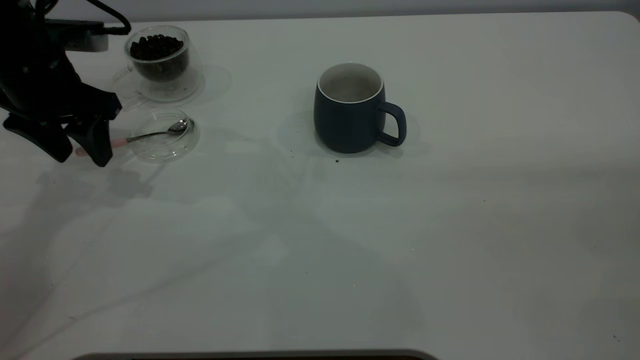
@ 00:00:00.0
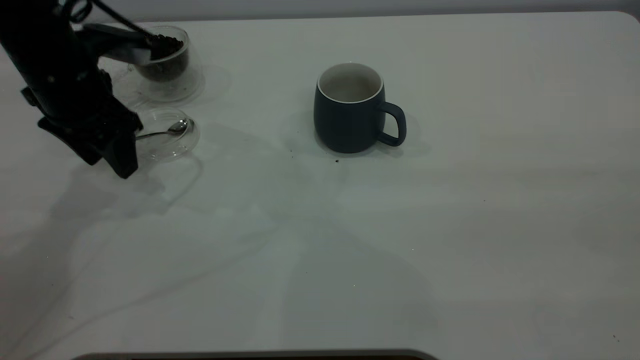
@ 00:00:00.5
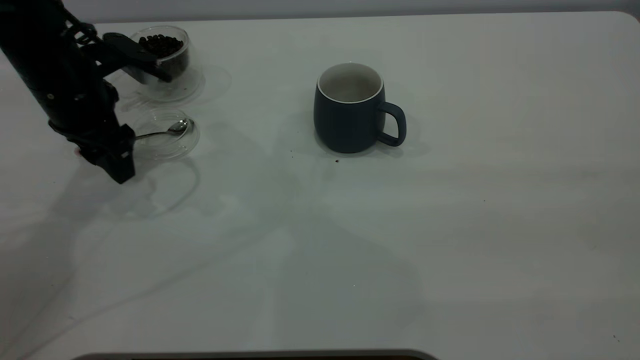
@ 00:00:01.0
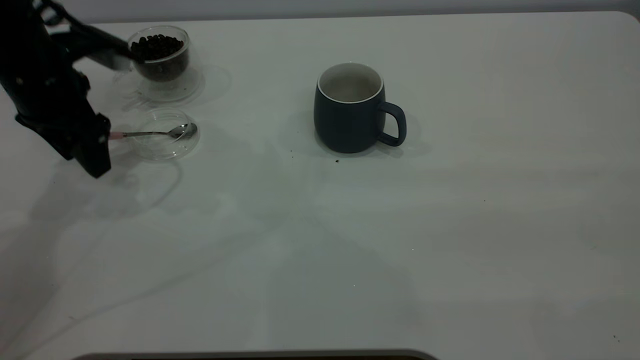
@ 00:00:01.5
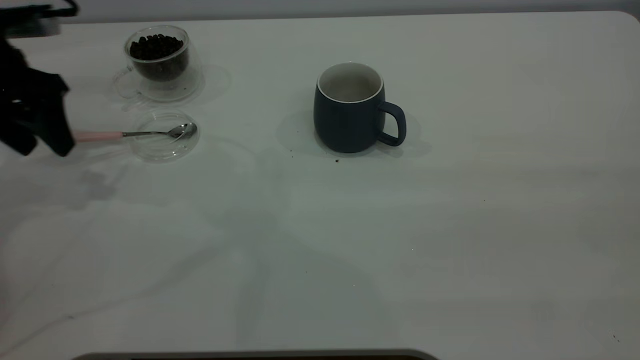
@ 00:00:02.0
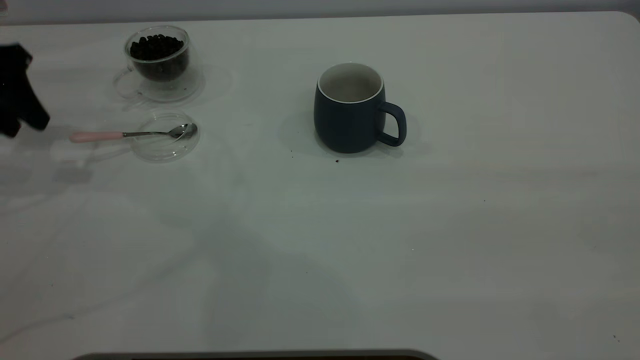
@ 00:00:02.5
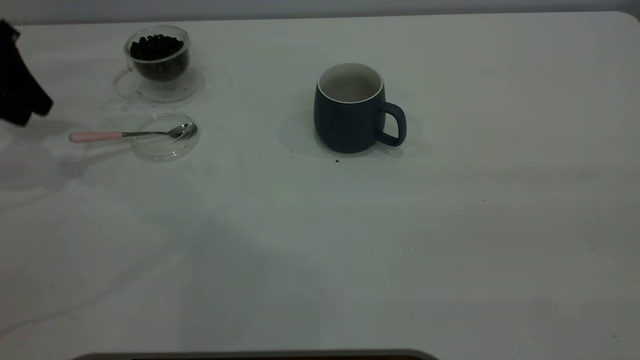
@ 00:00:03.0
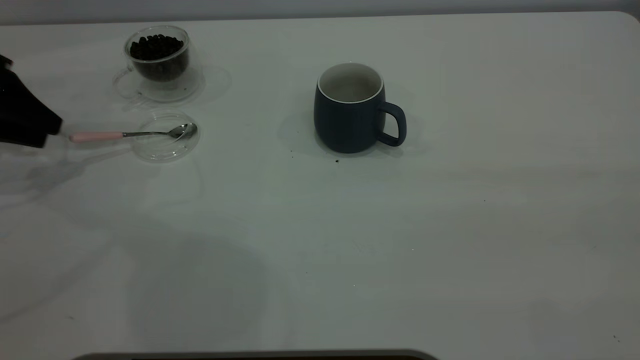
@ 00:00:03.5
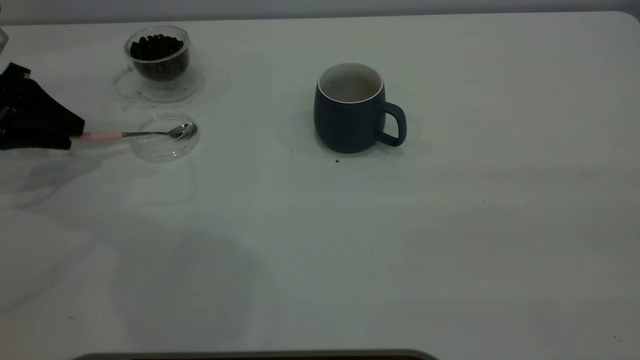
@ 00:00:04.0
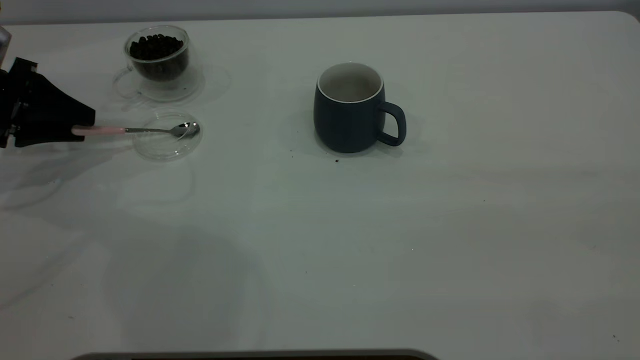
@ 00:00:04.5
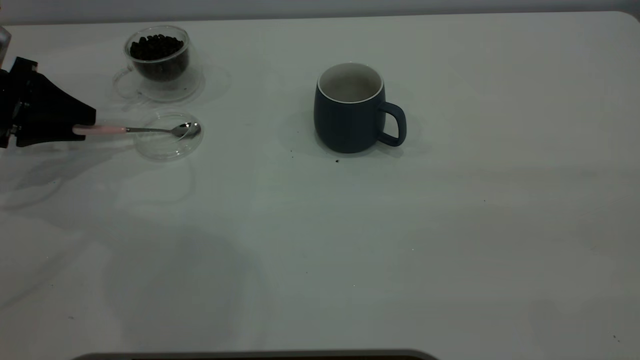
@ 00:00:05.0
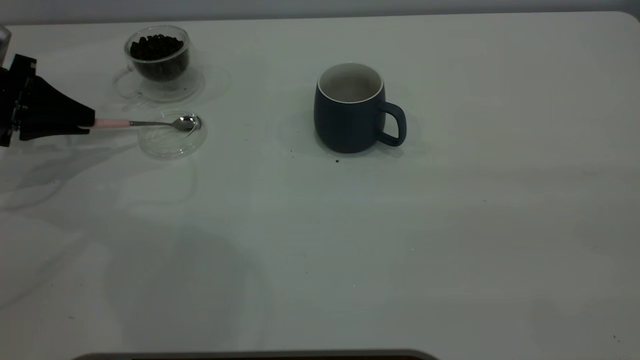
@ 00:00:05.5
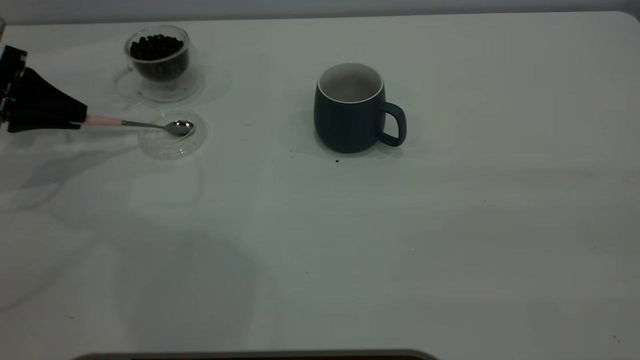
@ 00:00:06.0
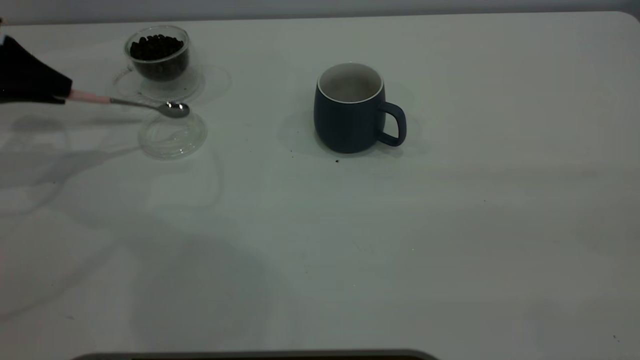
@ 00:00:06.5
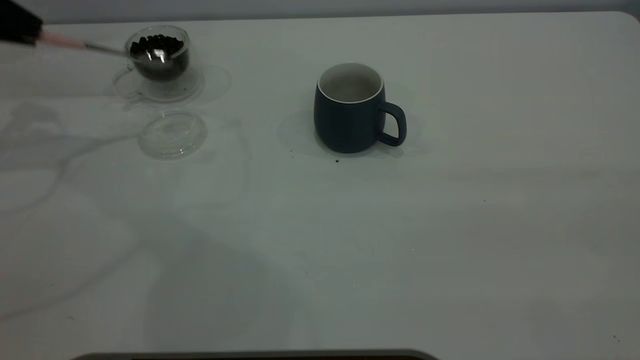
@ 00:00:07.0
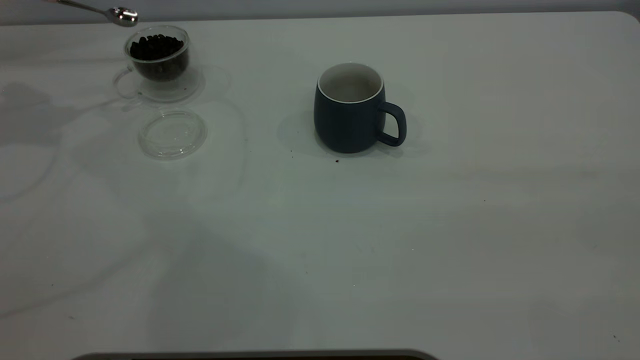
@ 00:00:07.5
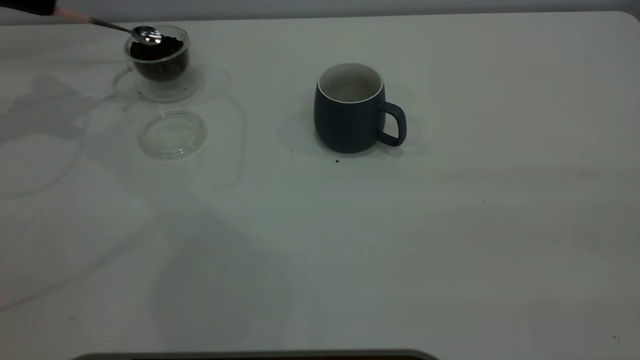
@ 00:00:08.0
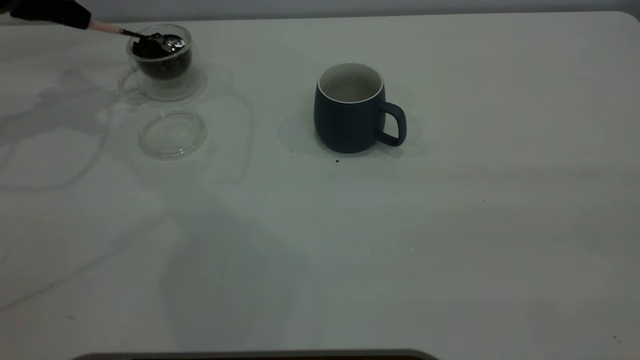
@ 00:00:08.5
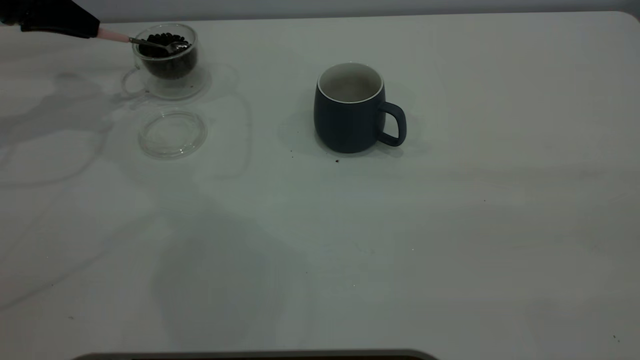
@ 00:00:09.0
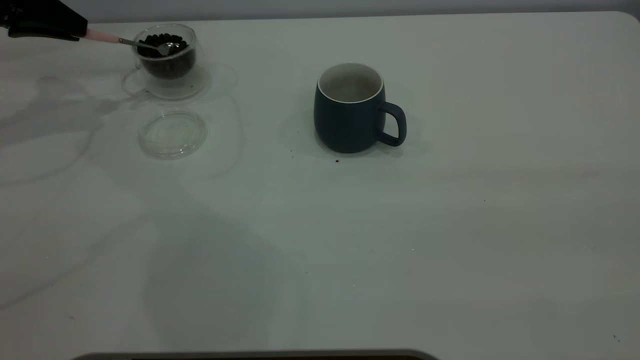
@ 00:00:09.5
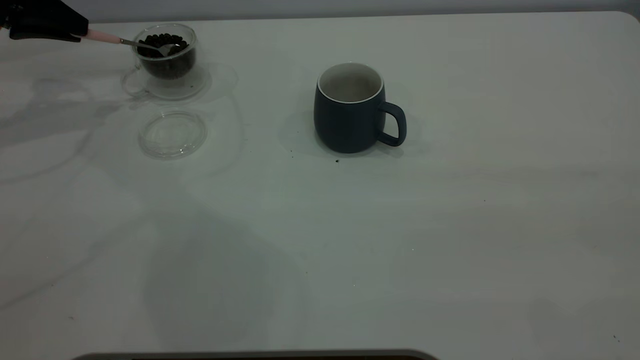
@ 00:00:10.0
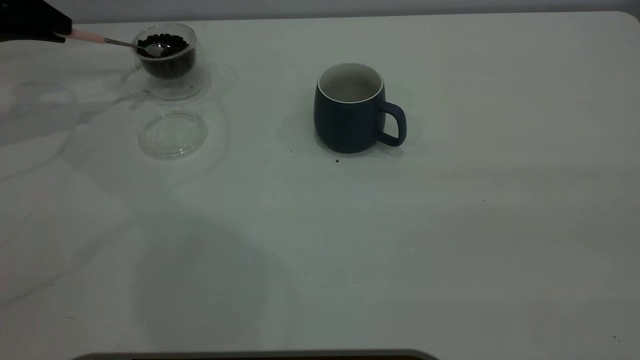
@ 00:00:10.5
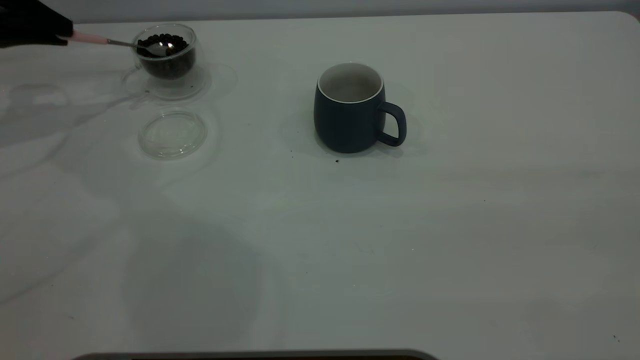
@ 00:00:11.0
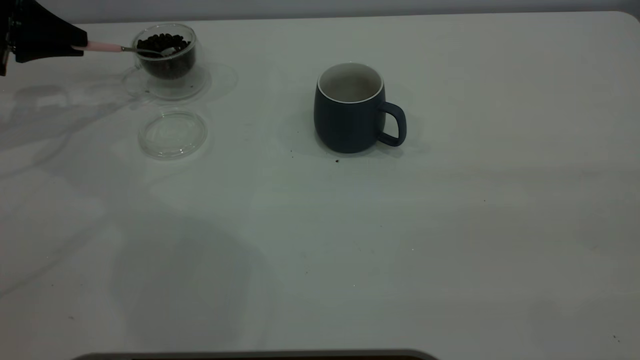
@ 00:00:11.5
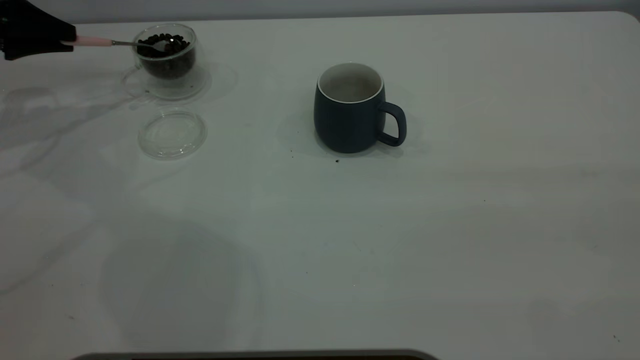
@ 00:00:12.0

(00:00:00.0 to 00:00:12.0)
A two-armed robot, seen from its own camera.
Task of the whole recording: the right gripper place the grey cup in the center of the table, the left gripper take the pink spoon from the cup lid and scoop out the coffee beans from the coffee cup and put them into the grey cup, the left gripper put the spoon back into the cup lid.
Step, 00:00:00.0 - 00:00:06.5: Pick up the spoon.
00:00:00.0 - 00:00:02.0: The left gripper goes about 5 cm to the left.
00:00:02.0 - 00:00:04.0: The left gripper travels downward and to the left by roughly 10 cm.
00:00:04.0 - 00:00:06.0: The left gripper closes up.
00:00:06.0 - 00:00:08.0: The left gripper is displaced upward and forward by roughly 15 cm.

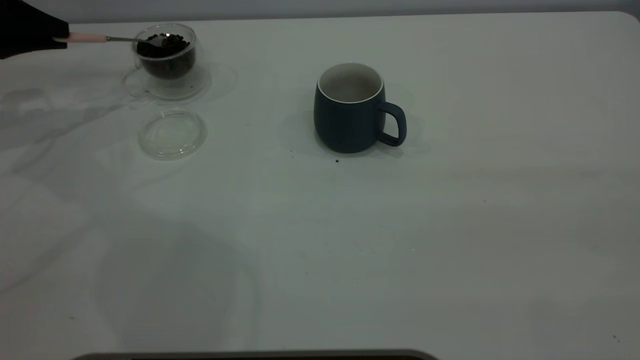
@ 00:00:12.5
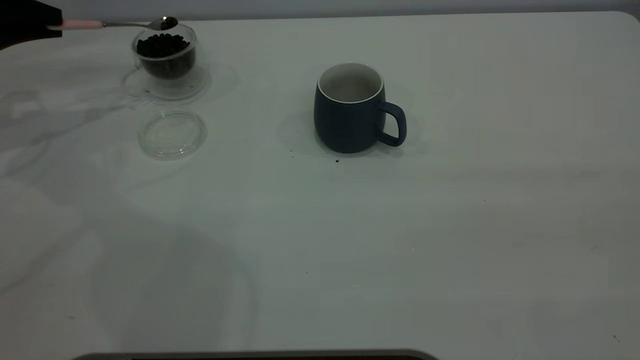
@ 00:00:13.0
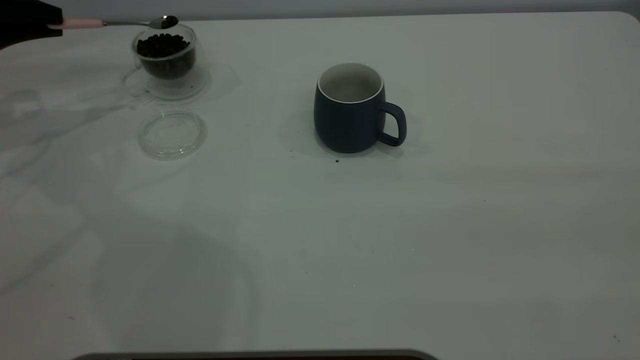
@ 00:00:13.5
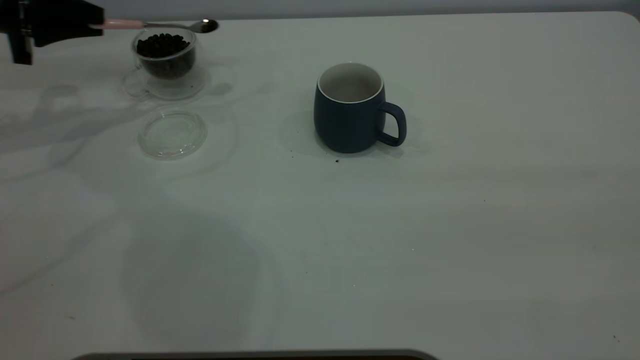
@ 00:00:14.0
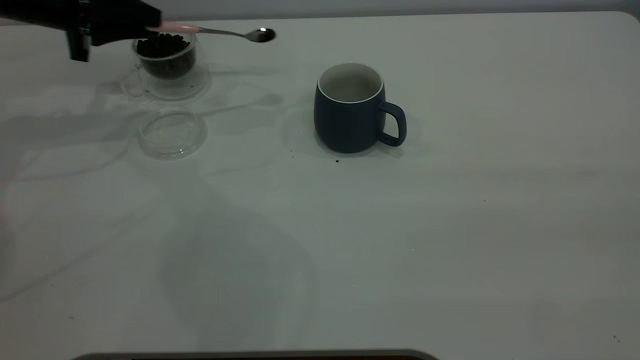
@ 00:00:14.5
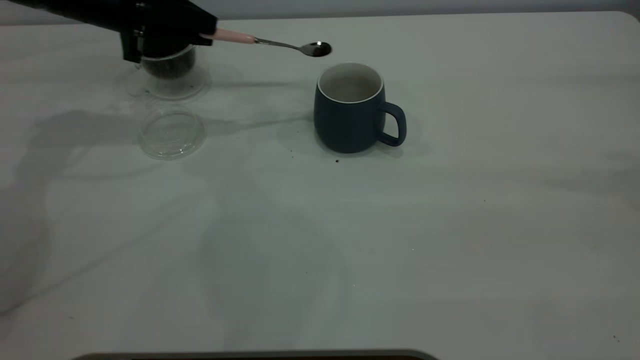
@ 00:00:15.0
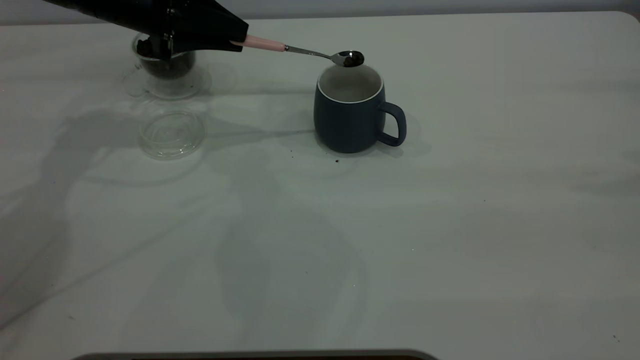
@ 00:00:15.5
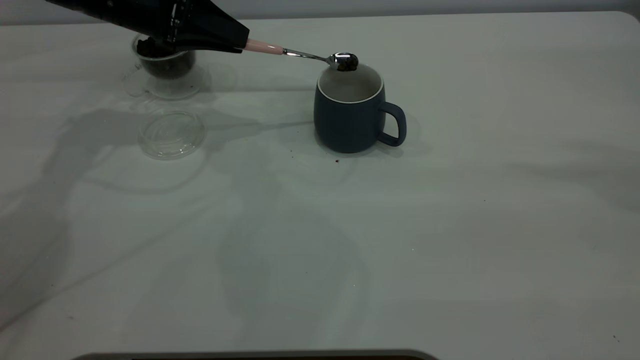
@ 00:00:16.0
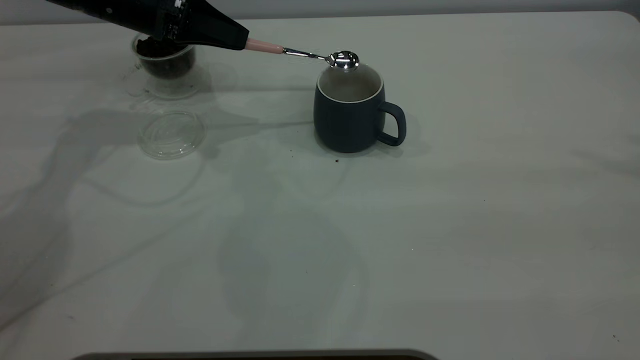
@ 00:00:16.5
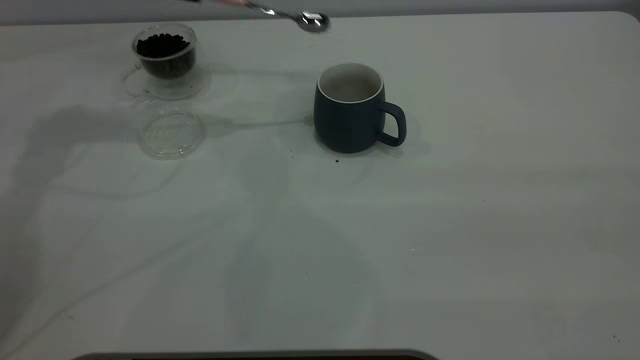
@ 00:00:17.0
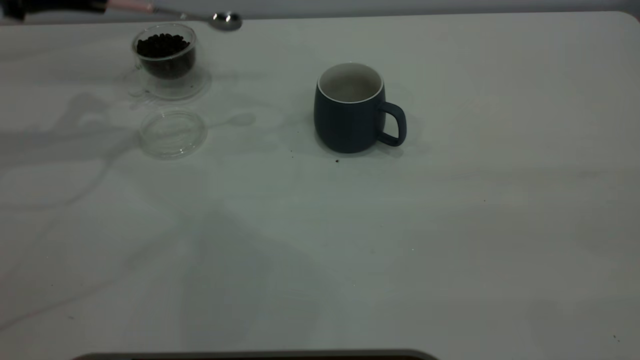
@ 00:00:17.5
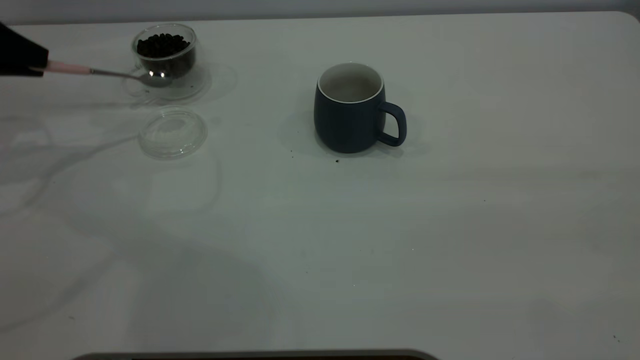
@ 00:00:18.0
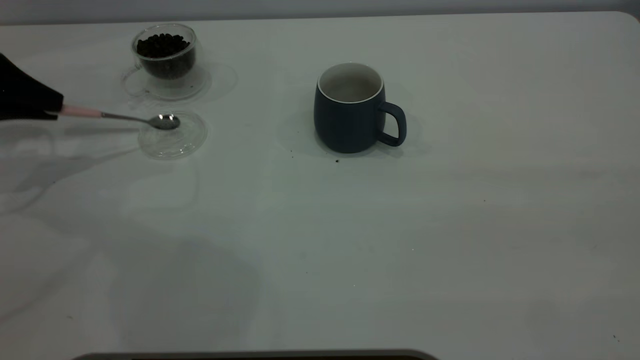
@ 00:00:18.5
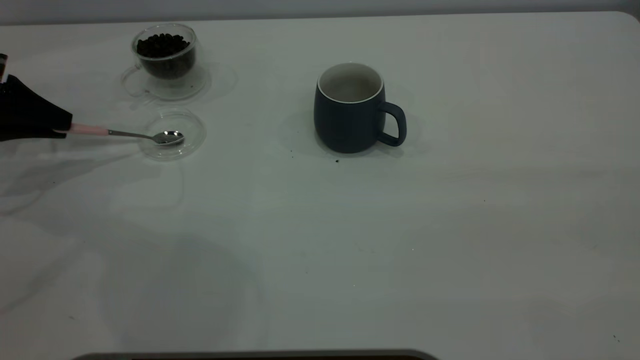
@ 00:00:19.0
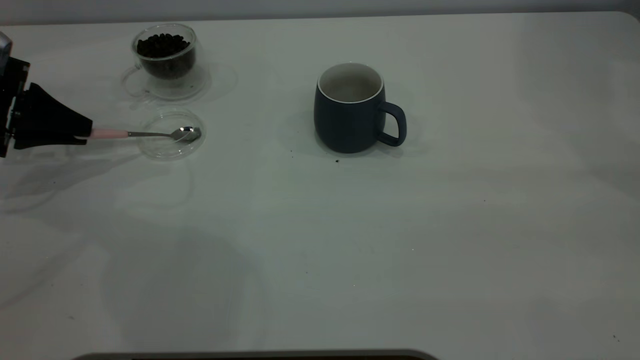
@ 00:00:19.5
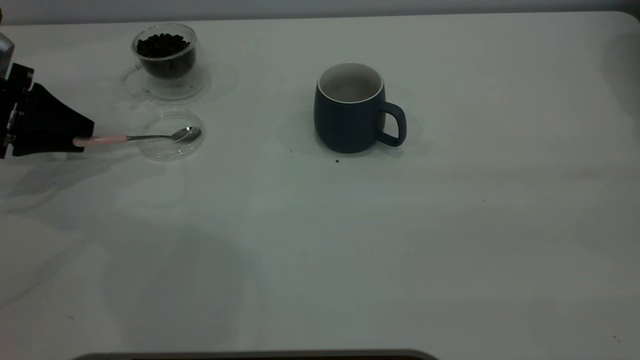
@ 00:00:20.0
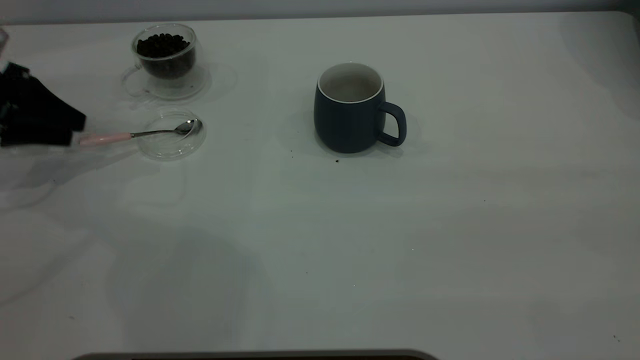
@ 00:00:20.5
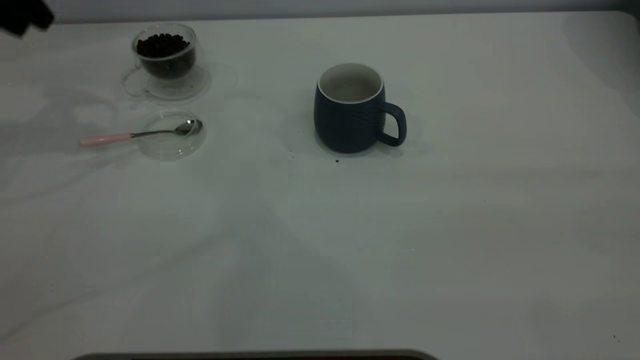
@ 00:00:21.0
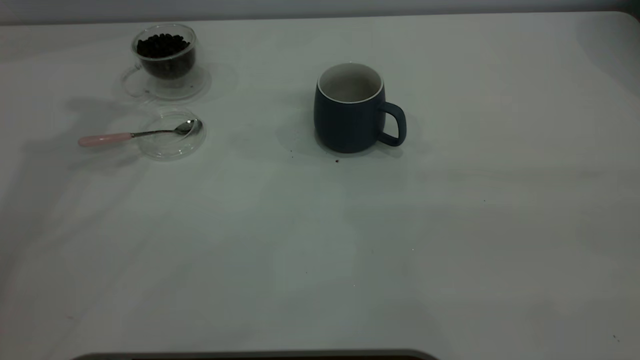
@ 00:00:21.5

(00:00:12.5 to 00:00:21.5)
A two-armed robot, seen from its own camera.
Task of the whole recording: the right gripper place the grey cup in the center of the table, the left gripper take the pink spoon from the cup lid and scoop out the coffee beans from the coffee cup and put them into the grey cup, the left gripper put the spoon back into the cup lid.
Step, 00:00:12.5 - 00:00:16.5: Scoop a spoonful of beans into the cup.
Step, 00:00:17.0 - 00:00:20.5: Place the spoon back in its original place.
00:00:12.5 - 00:00:14.5: The left gripper heads to the right, covering some 10 cm.
00:00:14.5 - 00:00:17.0: The left gripper is displaced upward and to the right by roughly 10 cm.
00:00:17.0 - 00:00:19.5: The left gripper is displaced to the left, downward and backward by roughly 20 cm.
00:00:19.5 - 00:00:21.5: The left gripper heads upward, covering about 30 cm, and opens up.
